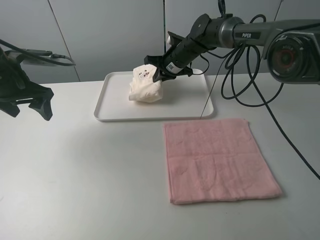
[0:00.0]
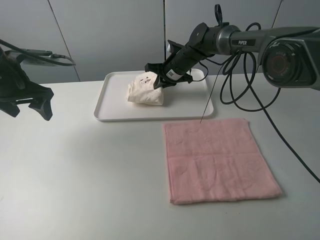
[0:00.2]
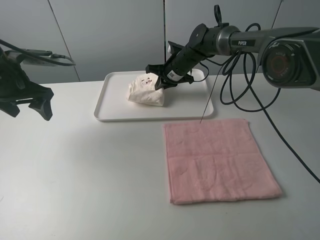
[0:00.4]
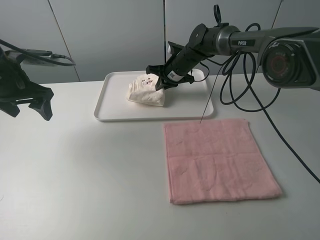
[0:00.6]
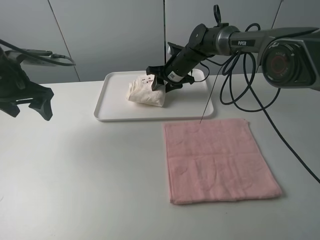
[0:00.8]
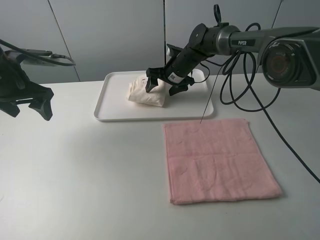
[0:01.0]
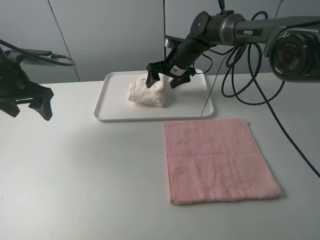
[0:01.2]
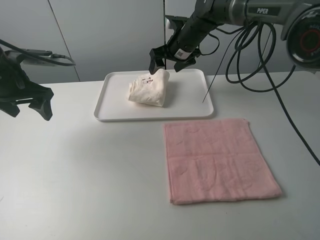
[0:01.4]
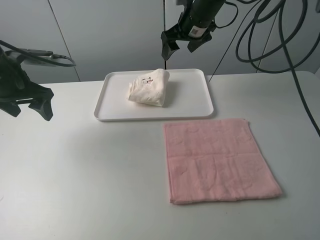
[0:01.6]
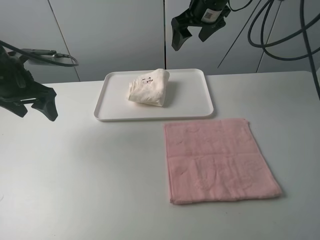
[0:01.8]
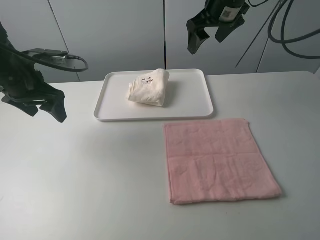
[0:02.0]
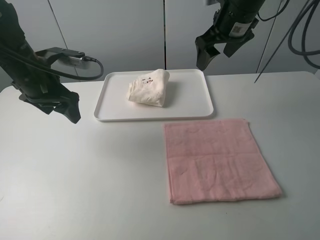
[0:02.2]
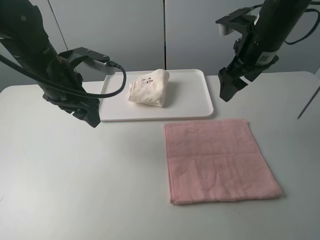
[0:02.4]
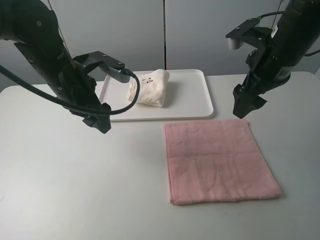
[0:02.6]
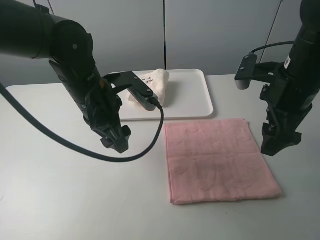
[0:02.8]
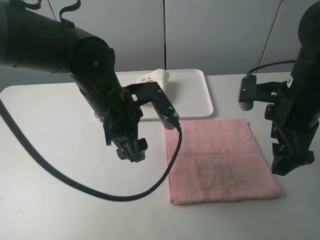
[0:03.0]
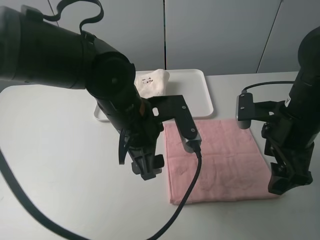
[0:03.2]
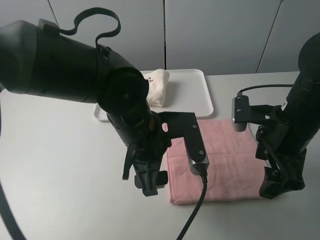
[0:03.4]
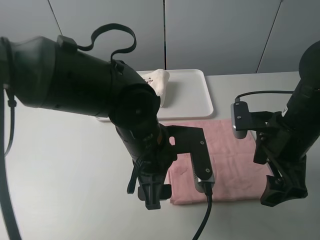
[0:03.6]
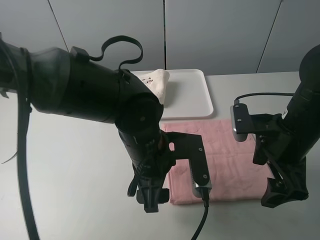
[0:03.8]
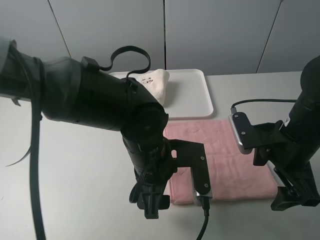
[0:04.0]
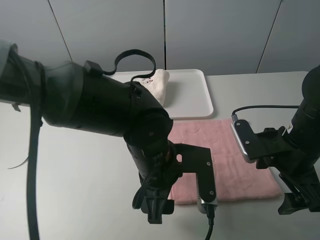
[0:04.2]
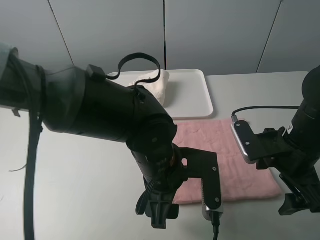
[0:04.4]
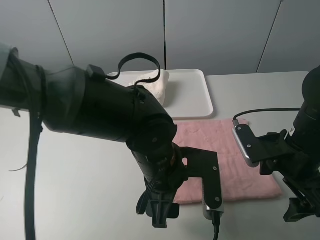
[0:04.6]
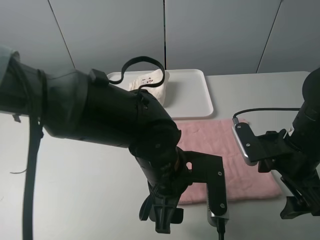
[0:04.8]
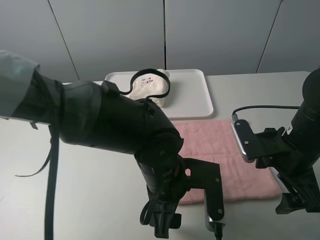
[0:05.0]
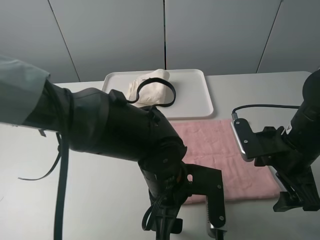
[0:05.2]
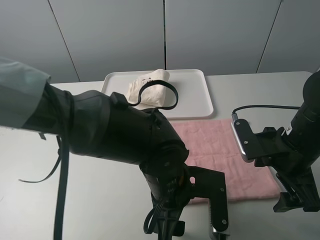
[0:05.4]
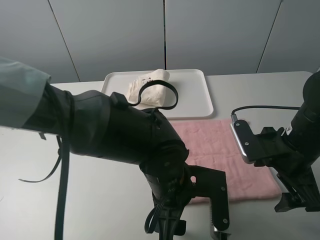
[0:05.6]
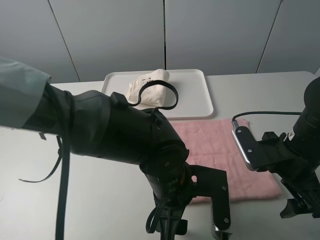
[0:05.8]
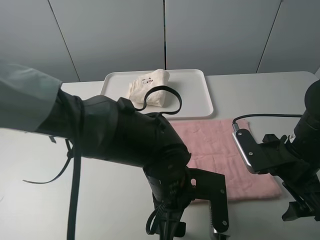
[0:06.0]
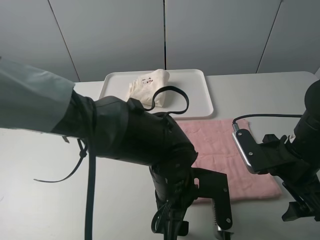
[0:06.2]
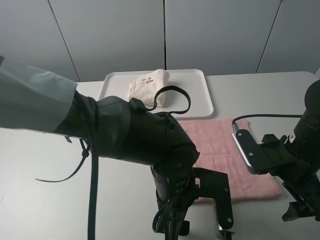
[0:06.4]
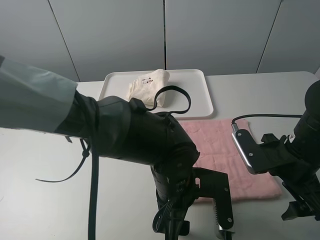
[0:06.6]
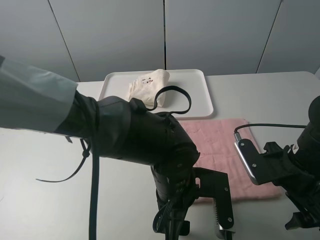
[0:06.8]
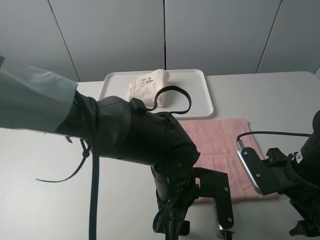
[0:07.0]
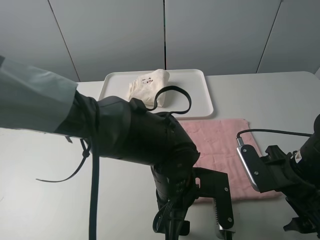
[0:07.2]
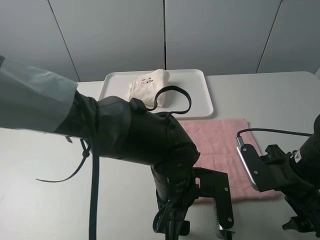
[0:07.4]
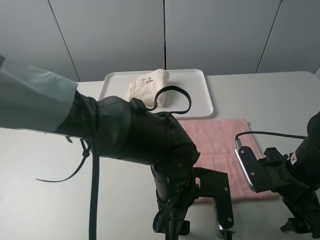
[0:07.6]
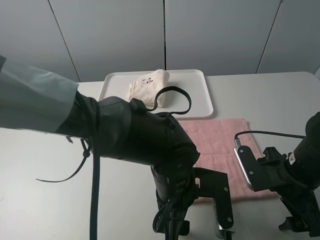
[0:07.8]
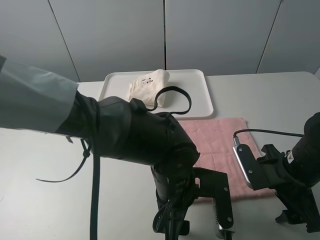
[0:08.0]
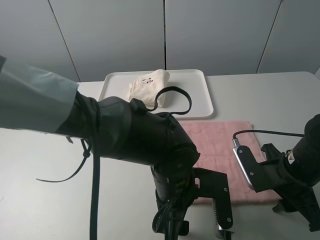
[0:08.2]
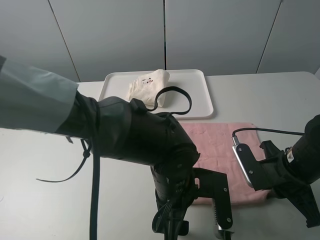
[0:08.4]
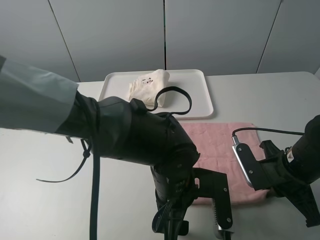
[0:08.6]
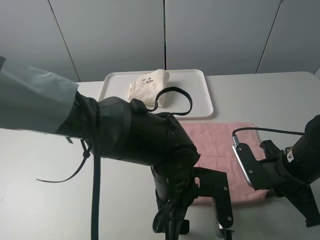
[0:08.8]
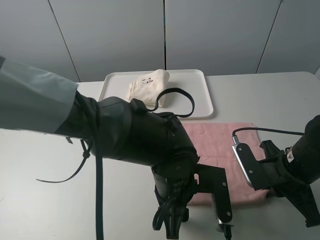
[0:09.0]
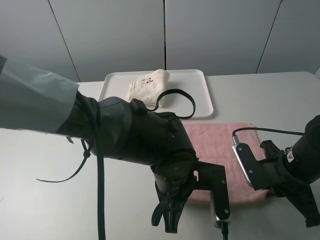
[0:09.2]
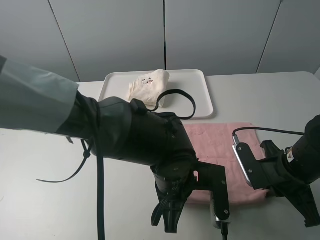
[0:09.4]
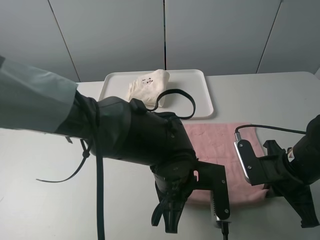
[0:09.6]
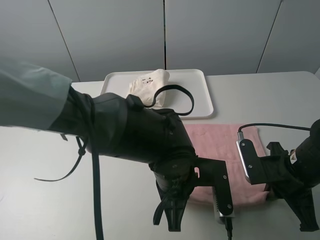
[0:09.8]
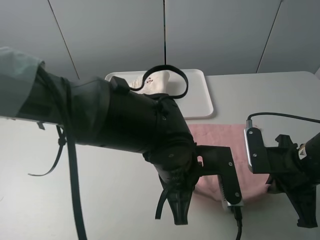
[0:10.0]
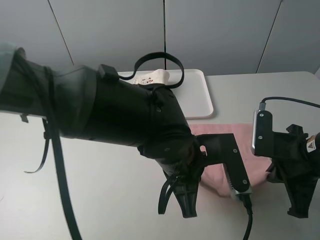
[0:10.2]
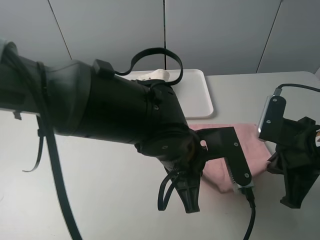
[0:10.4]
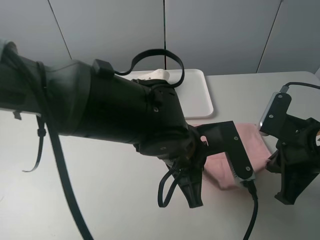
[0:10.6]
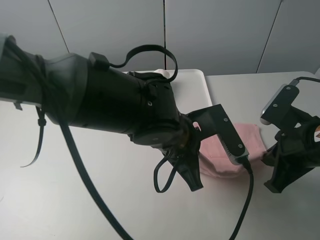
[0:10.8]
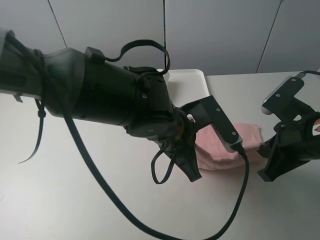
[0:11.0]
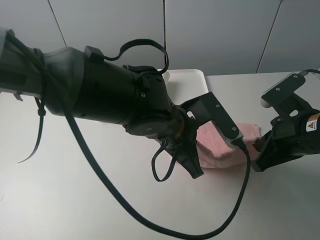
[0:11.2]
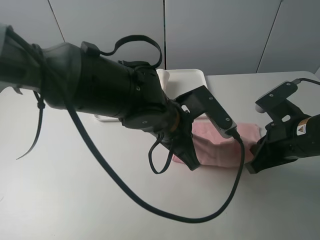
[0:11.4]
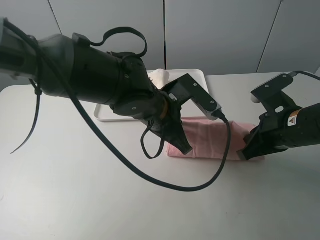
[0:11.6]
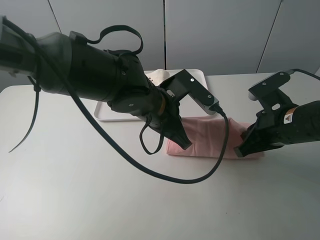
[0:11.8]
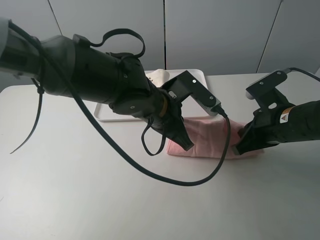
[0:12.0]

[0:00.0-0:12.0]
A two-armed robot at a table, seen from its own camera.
Task of the whole recording: fold one of the towels by two grippers and place it on the tray,then fold another towel by two grippers and place it on the folded towel.
Step, 0:01.2 to 0:09.4: Grasp the pink towel with the left gripper.
0:00.0 to 0:01.6: The right gripper is displaced upward by about 15 cm, and opens up.
0:01.6 to 0:03.0: The right gripper travels backward and to the right by some 25 cm. Meanwhile the left gripper travels to the right by roughly 25 cm.
0:03.0 to 0:04.4: The right gripper moves downward, roughly 5 cm; the left gripper heads backward and to the right, covering about 10 cm.
0:06.0 to 0:07.6: The grippers move only a little.
0:07.6 to 0:09.0: The left gripper closes its fingers; the right gripper closes.
0:09.0 to 0:10.4: Both grippers travel together upward, roughly 5 cm. The left gripper closes.
0:10.4 to 0:12.0: Both grippers move forward, about 5 cm.

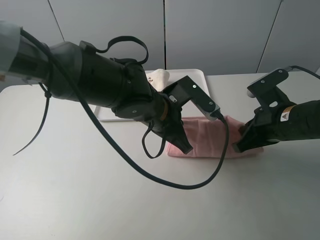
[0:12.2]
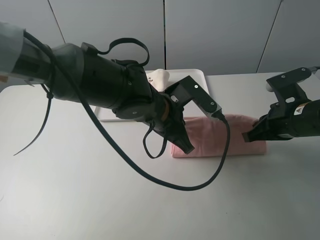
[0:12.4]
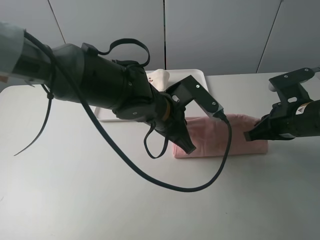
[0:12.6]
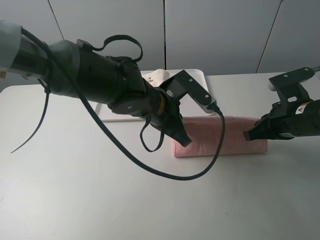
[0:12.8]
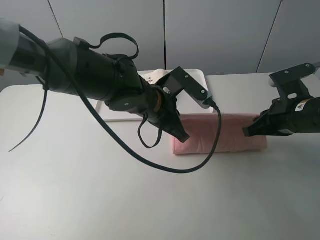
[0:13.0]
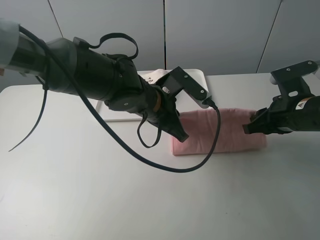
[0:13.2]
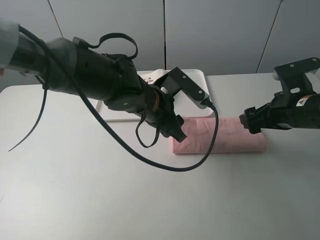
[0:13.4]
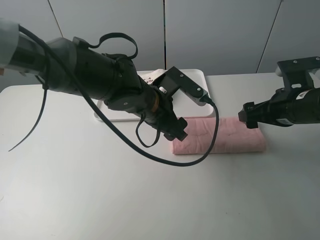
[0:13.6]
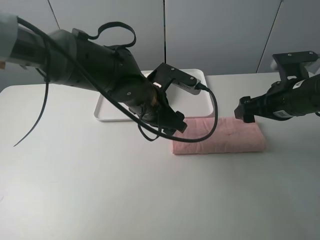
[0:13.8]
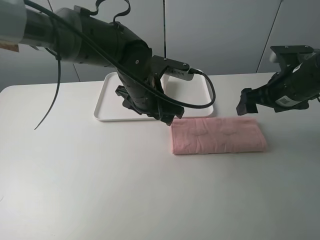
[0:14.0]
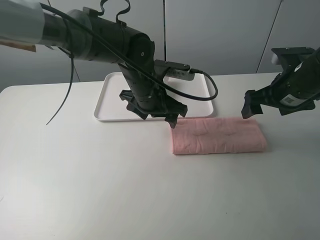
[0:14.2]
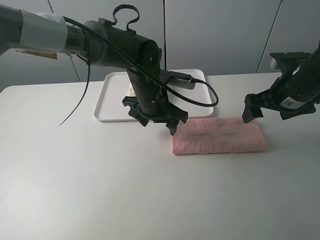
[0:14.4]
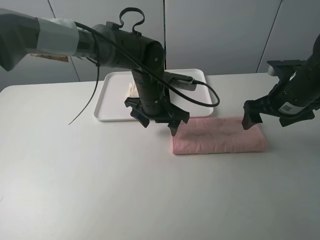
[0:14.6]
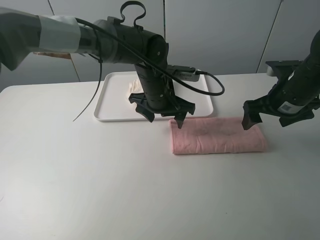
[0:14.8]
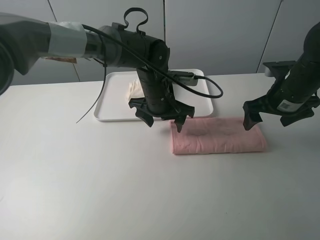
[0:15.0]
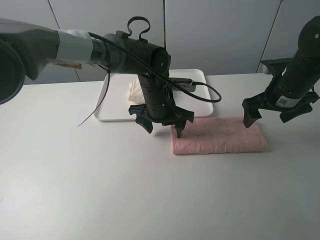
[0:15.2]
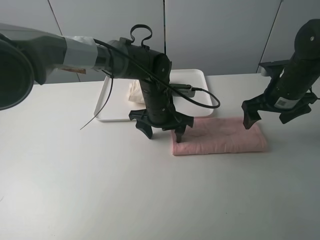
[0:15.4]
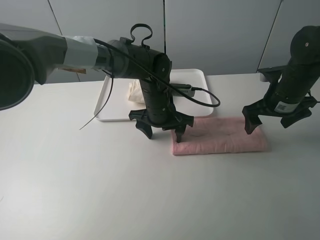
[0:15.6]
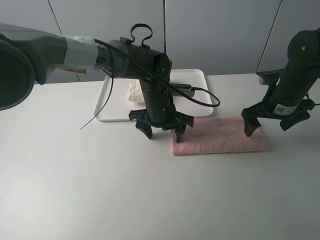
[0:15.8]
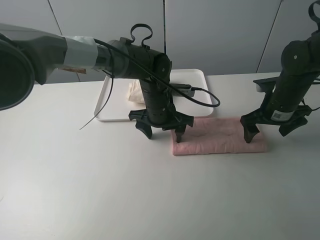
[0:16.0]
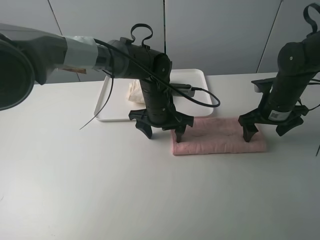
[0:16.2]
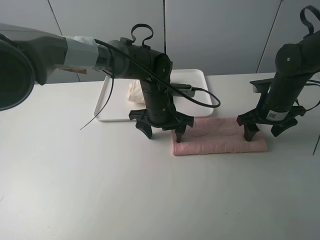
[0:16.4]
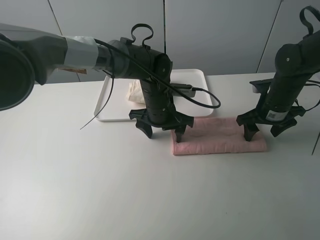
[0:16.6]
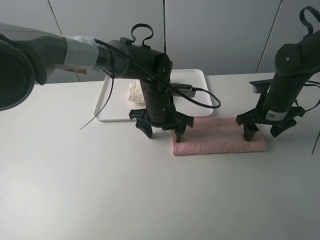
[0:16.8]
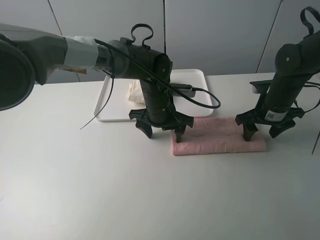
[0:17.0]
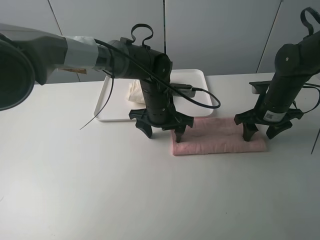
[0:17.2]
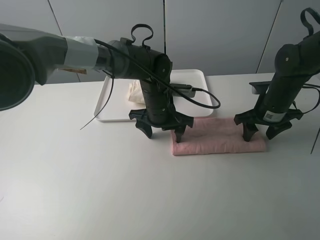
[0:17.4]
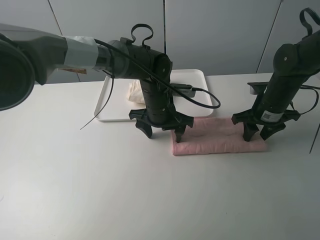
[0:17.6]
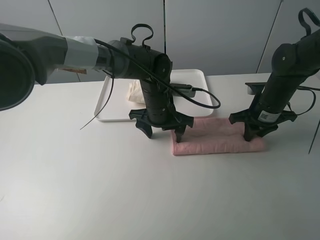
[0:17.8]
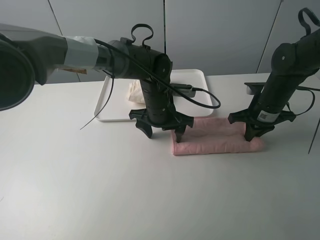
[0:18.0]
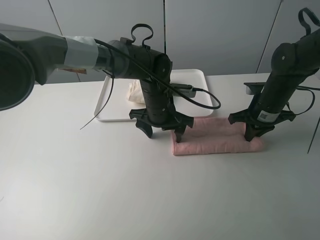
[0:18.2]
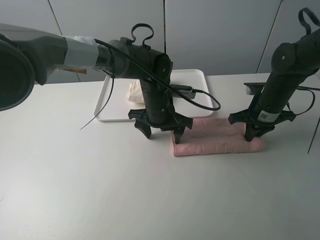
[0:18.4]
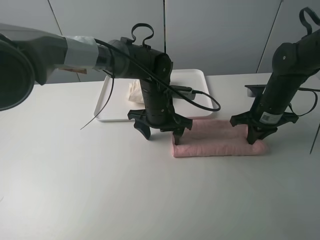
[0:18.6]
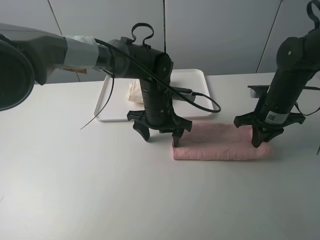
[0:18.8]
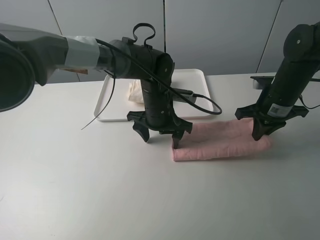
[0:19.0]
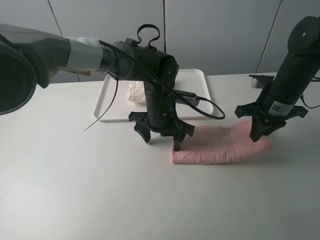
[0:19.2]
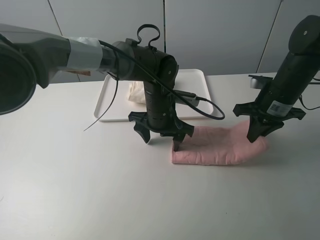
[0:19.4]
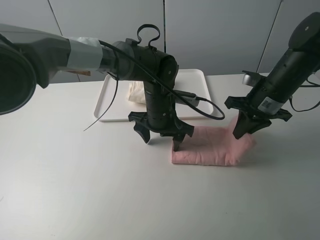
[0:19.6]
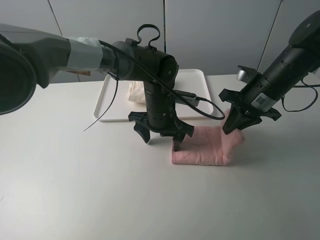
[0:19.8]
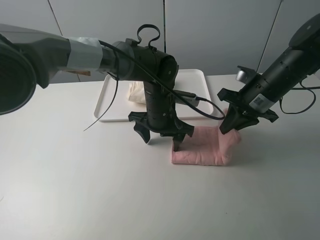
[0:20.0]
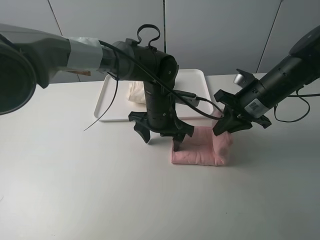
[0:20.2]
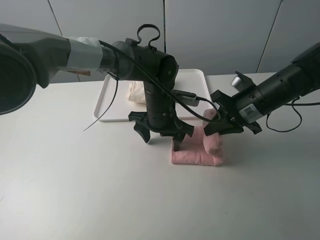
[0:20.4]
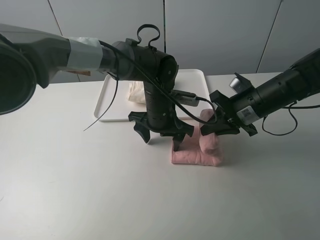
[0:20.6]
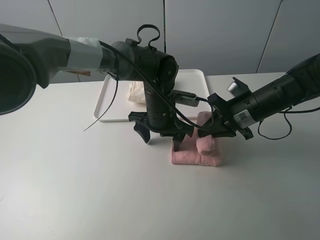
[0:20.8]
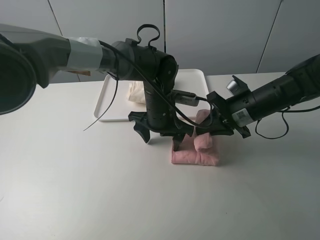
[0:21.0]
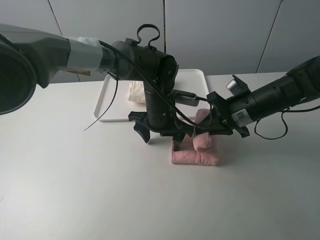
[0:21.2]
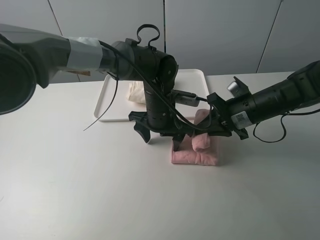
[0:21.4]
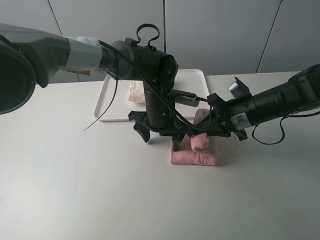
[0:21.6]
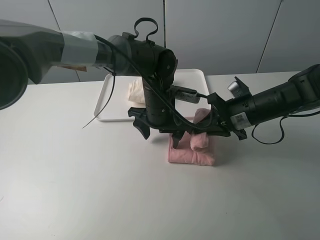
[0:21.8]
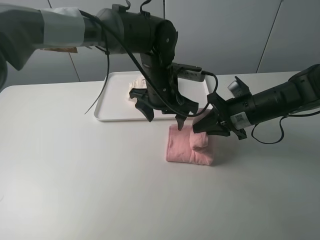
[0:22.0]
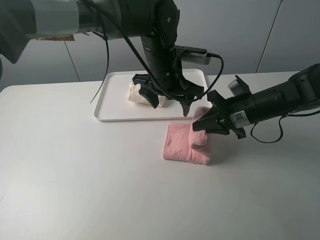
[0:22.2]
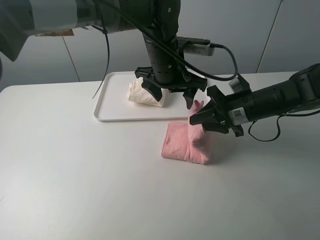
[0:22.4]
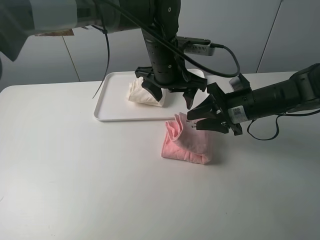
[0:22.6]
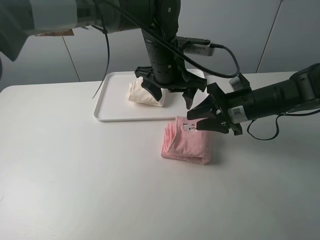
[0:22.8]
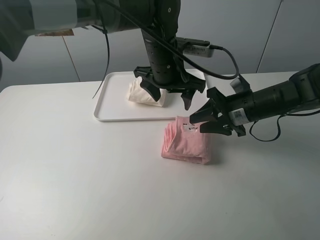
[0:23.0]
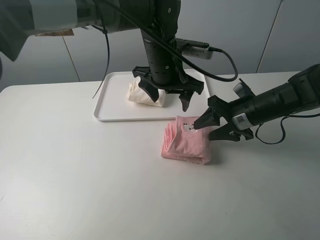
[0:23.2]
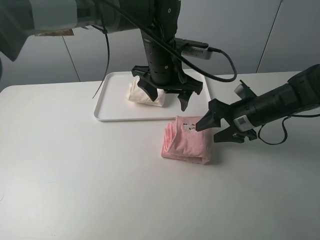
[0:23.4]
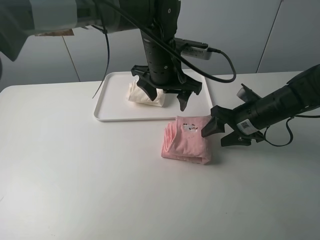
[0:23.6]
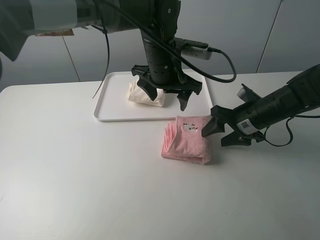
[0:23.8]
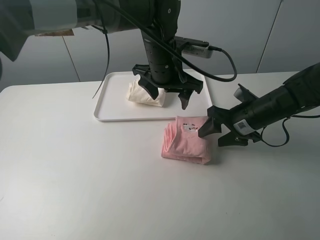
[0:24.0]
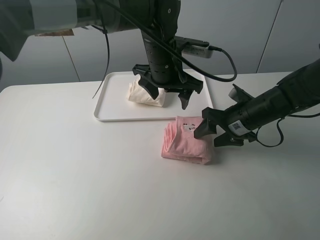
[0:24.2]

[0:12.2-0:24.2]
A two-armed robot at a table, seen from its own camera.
Task of the whole recording: fold one of the towels by two grippers and place it on the tray,then fold another towel by two grippers and place it on the folded towel.
Step, 0:13.8 to 0:15.6: Press the pink towel with the left gripper.
Step, 0:15.8 to 0:18.2: Grasp the pink towel with the right gripper.
Step, 0:18.4 to 0:23.0: Fold the pink towel from right to left with right gripper.
0:12.2 to 0:13.8: The right gripper moves approximately 5 cm, and opens. The left gripper opens up.
0:13.8 to 0:15.2: The grippers both shift forward by roughly 5 cm.
0:15.2 to 0:16.6: The right gripper travels downward by approximately 5 cm.
0:16.6 to 0:18.2: The right gripper closes.
0:18.2 to 0:19.8: The right gripper heads upward, covering roughly 5 cm.
0:21.2 to 0:22.6: The left gripper goes roughly 10 cm upward. Meanwhile the right gripper opens up.
